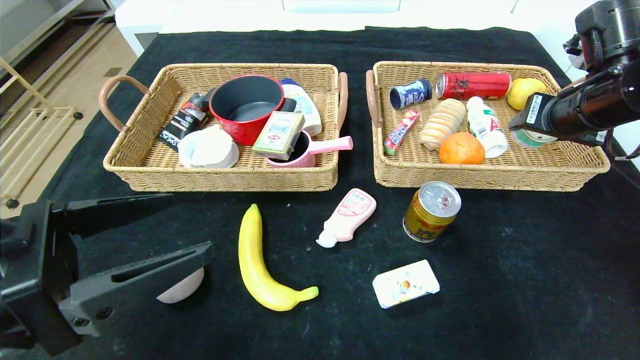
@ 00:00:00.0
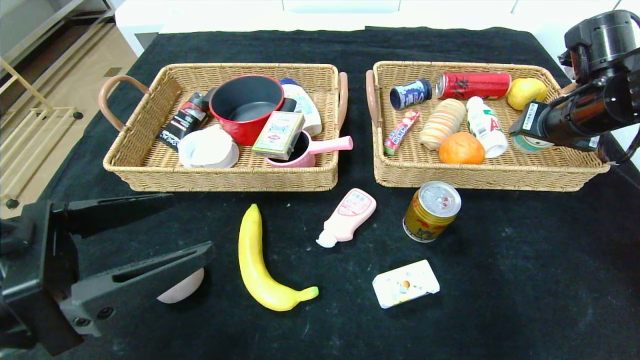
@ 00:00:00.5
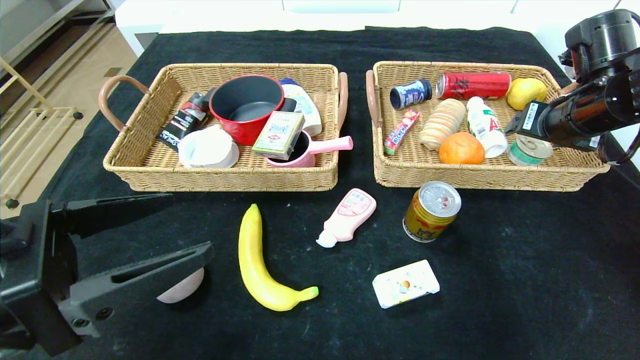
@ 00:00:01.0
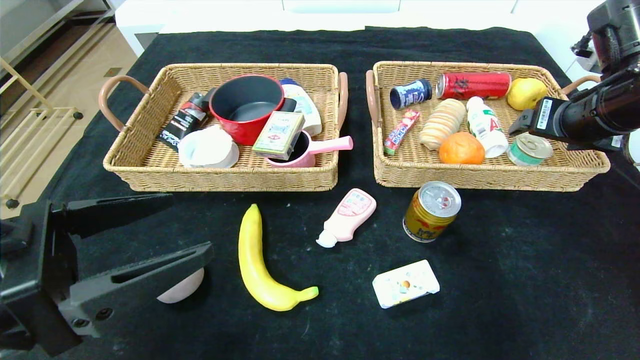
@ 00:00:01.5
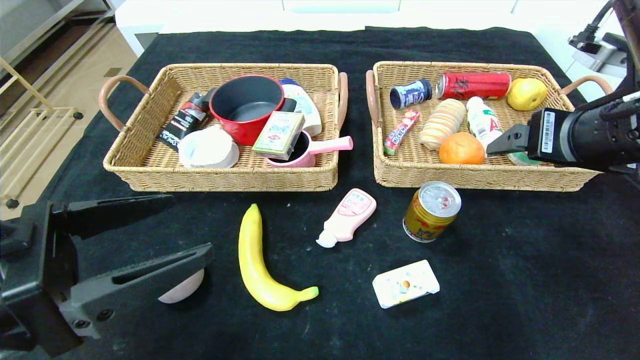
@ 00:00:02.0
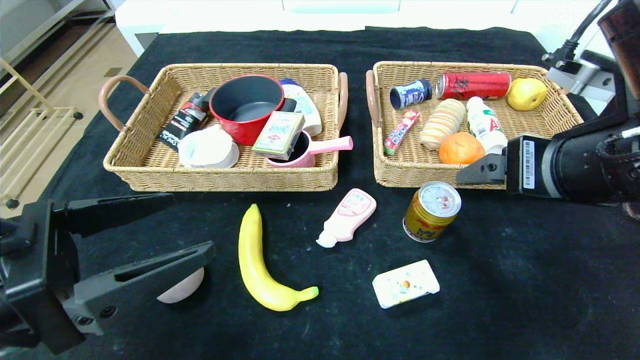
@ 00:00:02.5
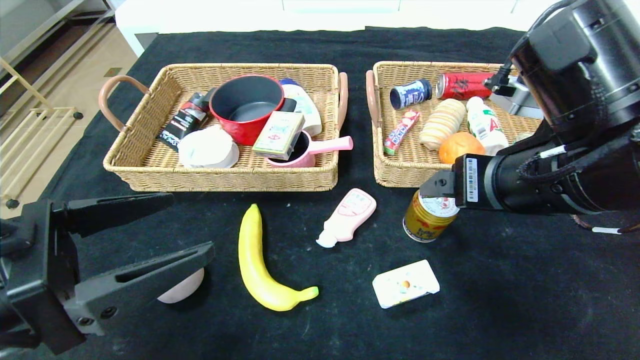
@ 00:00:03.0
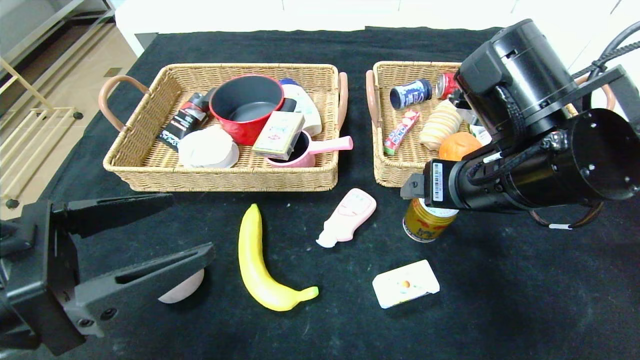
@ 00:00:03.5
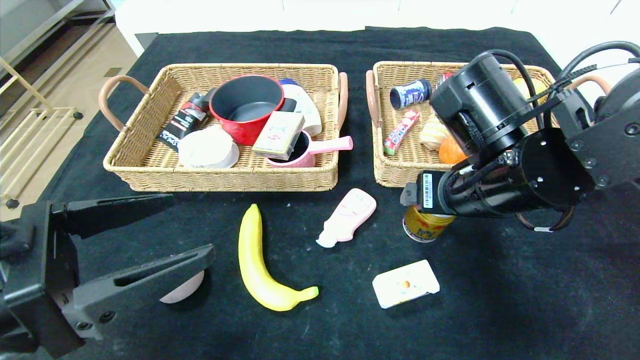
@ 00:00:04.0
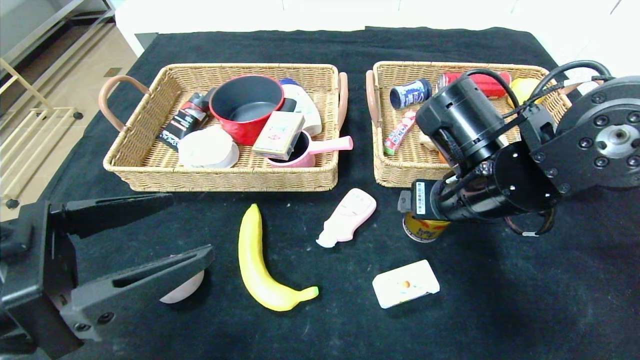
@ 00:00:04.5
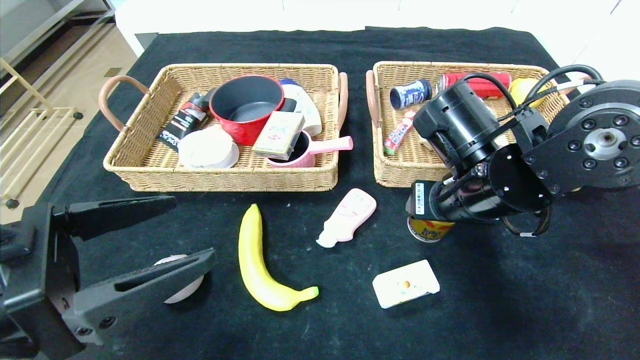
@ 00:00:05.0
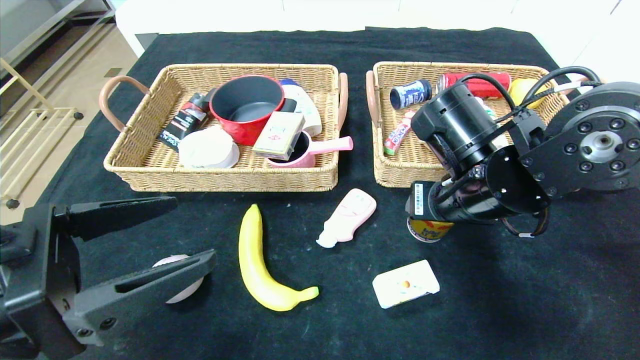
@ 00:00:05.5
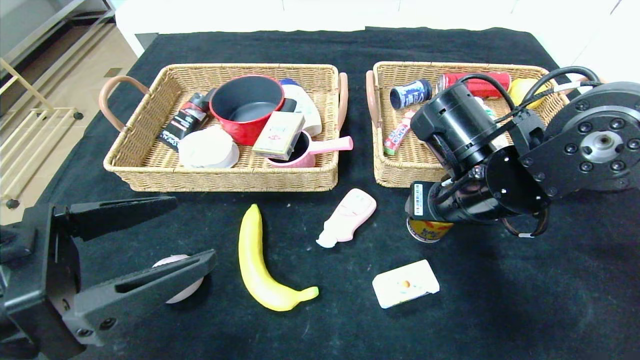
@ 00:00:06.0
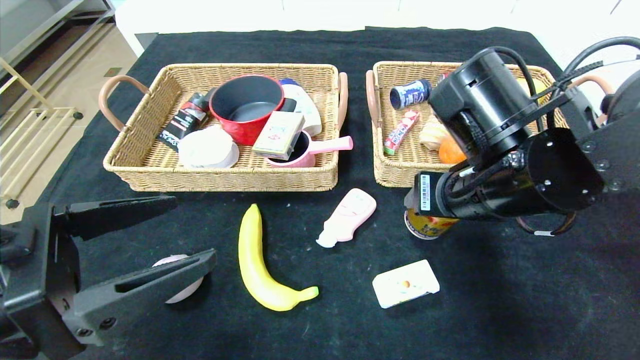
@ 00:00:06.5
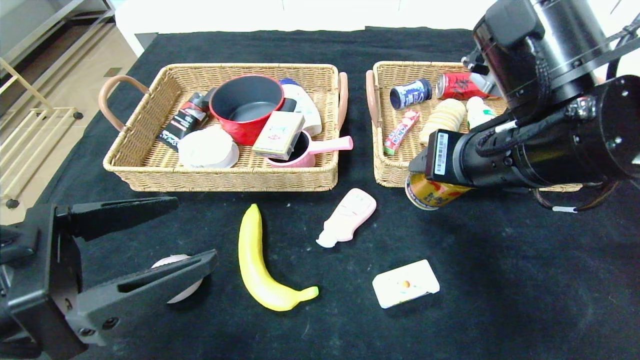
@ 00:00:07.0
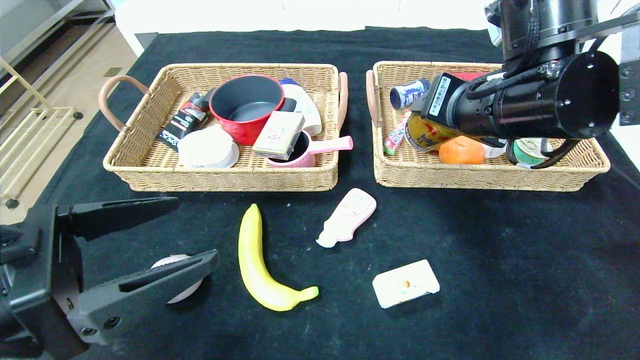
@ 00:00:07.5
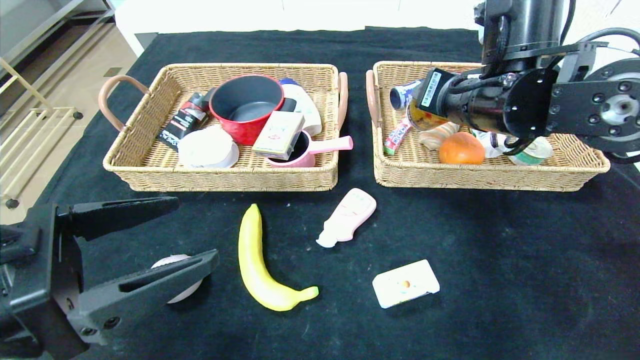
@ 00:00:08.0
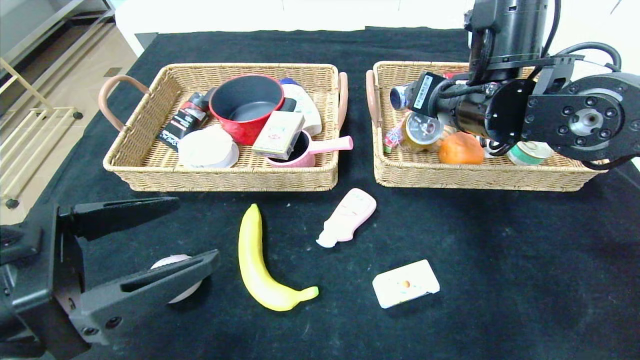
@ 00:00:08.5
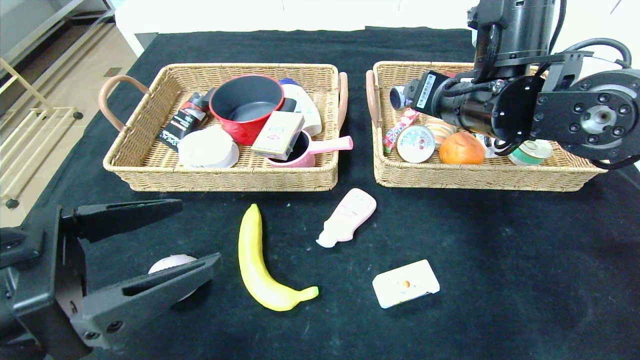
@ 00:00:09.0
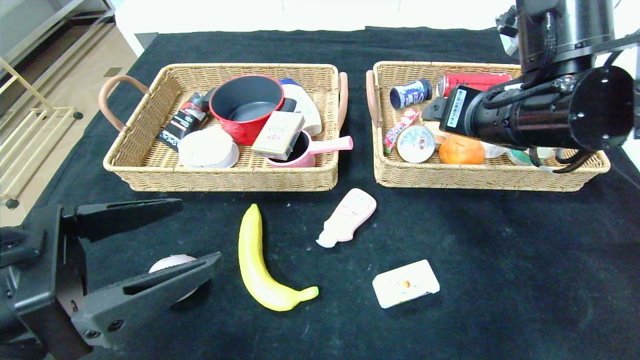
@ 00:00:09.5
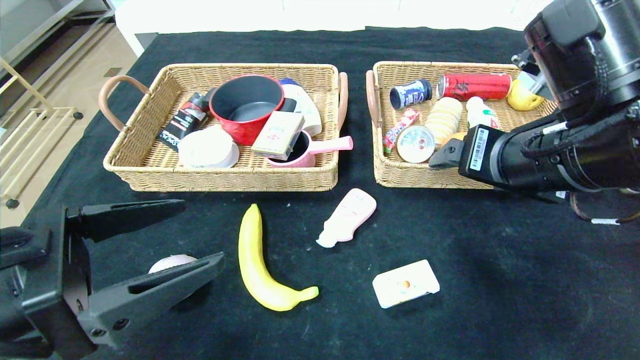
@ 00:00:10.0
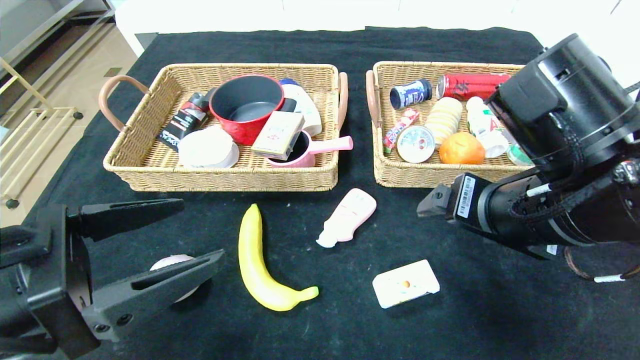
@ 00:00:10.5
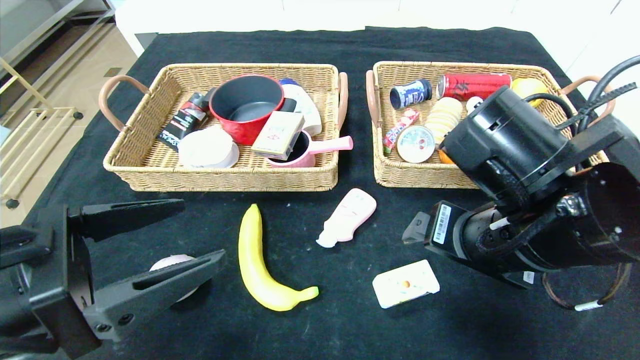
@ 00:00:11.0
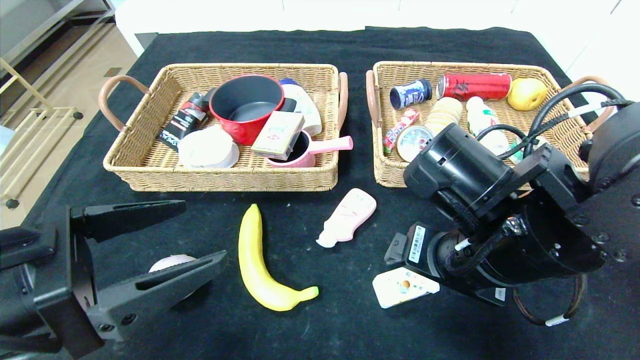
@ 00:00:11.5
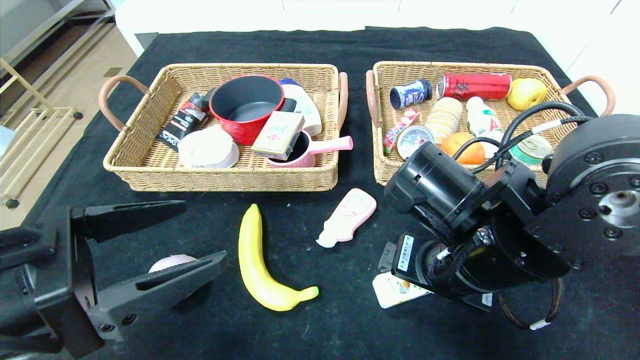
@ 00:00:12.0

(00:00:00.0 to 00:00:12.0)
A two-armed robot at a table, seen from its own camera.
Step, 00:00:01.0 - 00:00:08.5: Grasp the Red Bull and put it in the right basket.
00:00:00.0 - 00:00:02.0: The right gripper travels backward and to the left by some 10 cm.
00:00:02.0 - 00:00:04.0: The right gripper shifts approximately 10 cm to the left and downward.
00:00:04.0 - 00:00:06.0: The grippers make only small movements.
00:00:06.0 - 00:00:08.0: The right gripper travels upward and forward by about 10 cm.
00:00:08.0 - 00:00:10.0: The right gripper shifts approximately 10 cm backward.
00:00:10.0 - 00:00:12.0: The right gripper travels downward and to the left by roughly 10 cm.

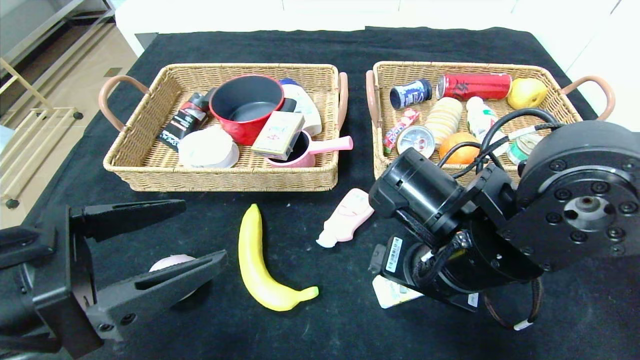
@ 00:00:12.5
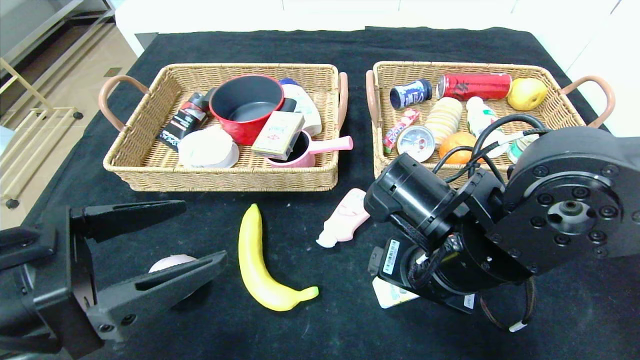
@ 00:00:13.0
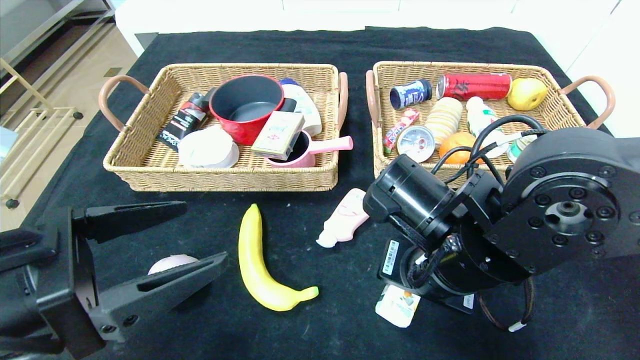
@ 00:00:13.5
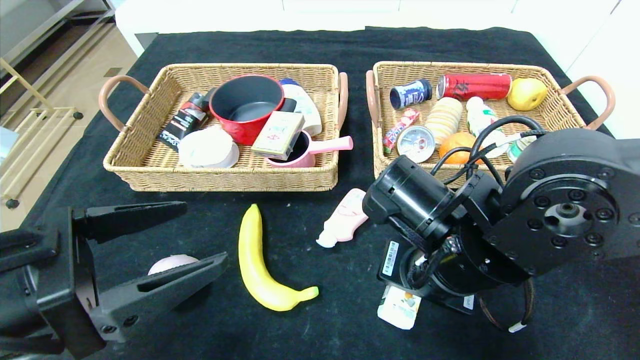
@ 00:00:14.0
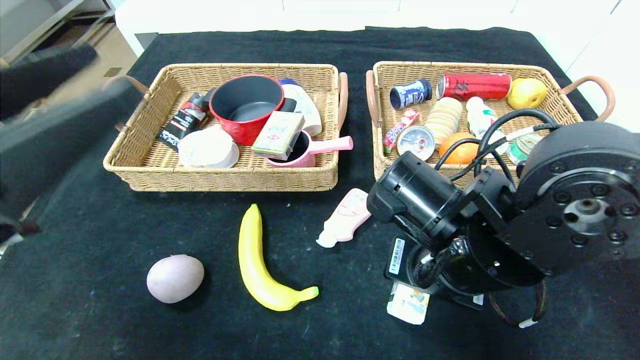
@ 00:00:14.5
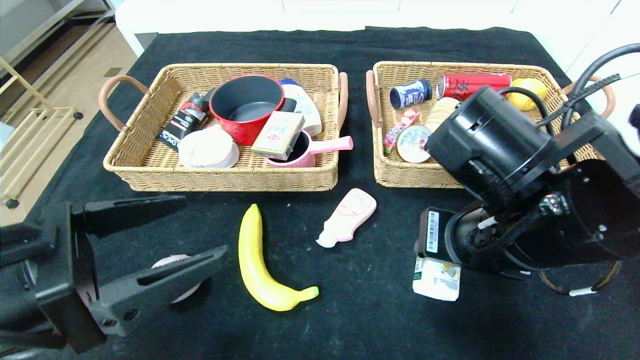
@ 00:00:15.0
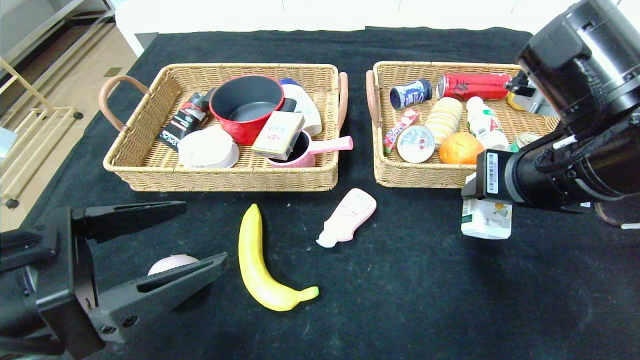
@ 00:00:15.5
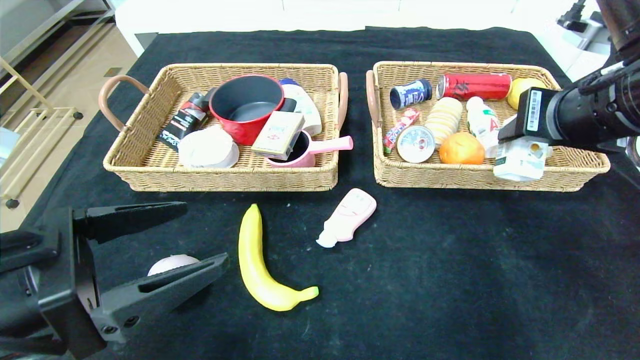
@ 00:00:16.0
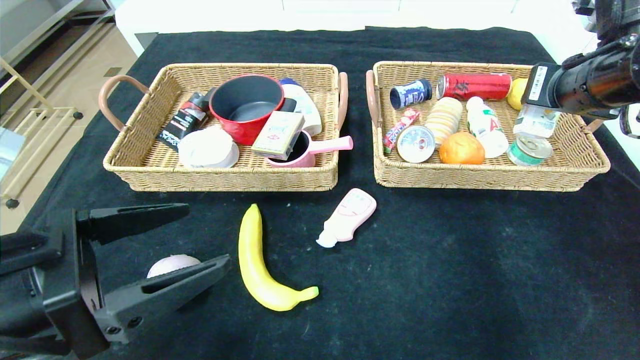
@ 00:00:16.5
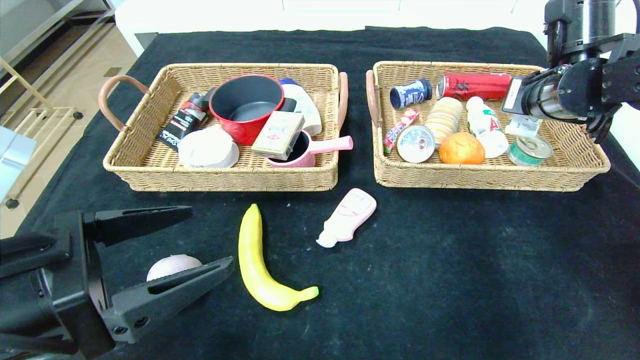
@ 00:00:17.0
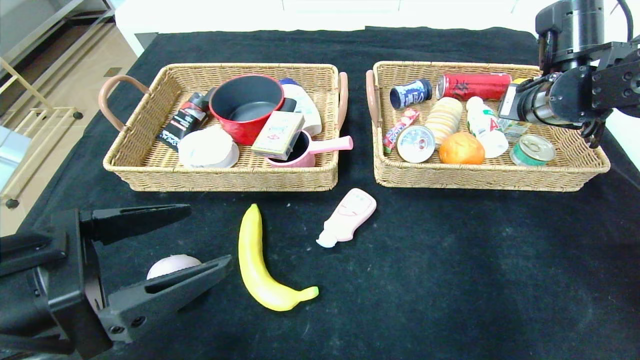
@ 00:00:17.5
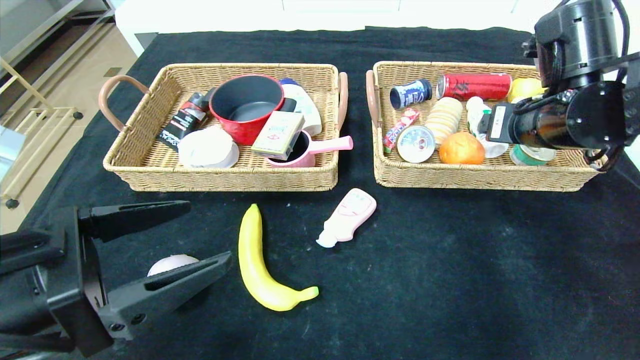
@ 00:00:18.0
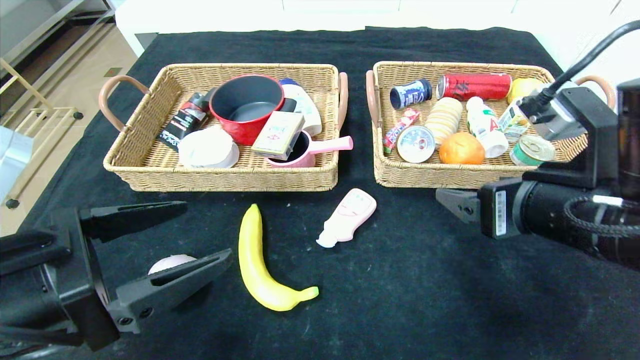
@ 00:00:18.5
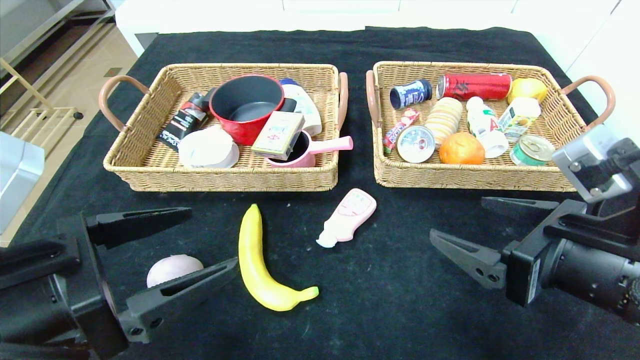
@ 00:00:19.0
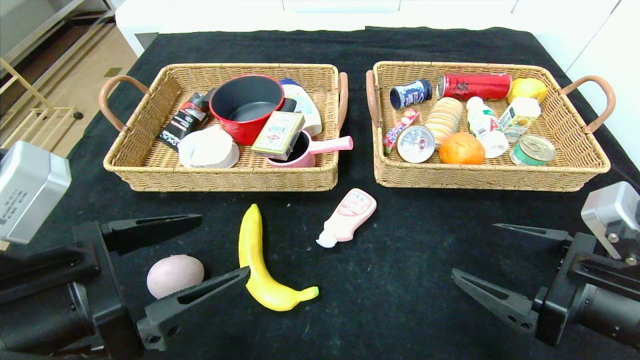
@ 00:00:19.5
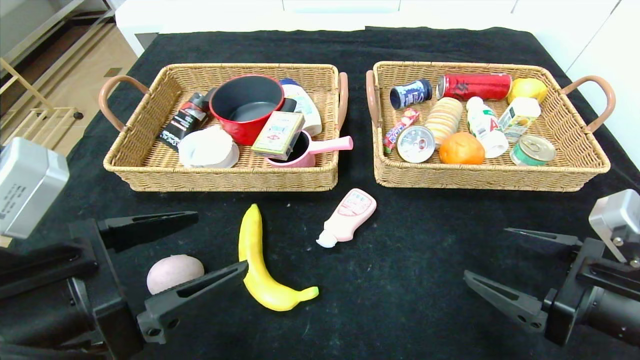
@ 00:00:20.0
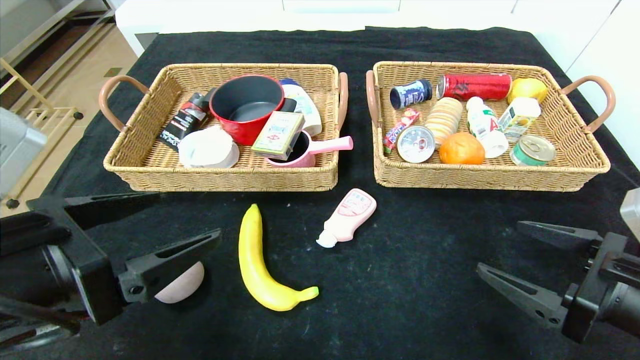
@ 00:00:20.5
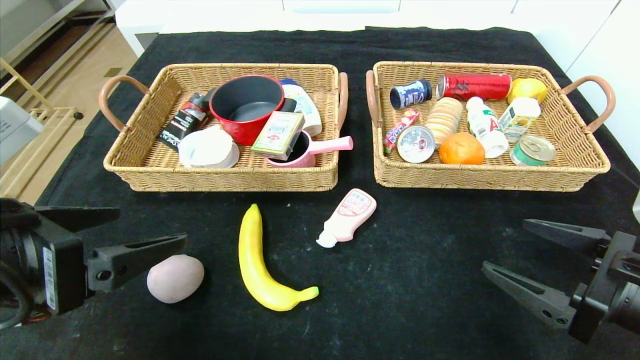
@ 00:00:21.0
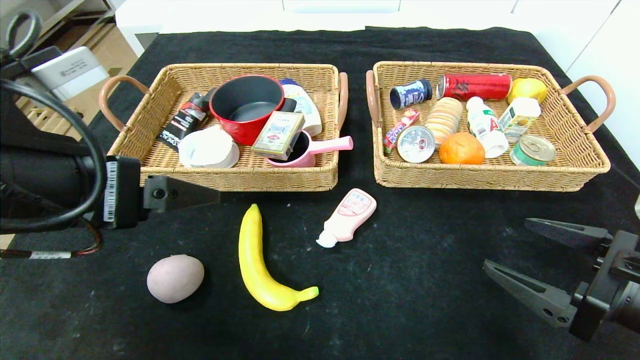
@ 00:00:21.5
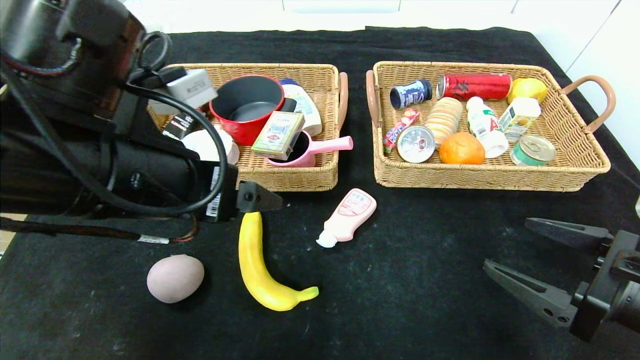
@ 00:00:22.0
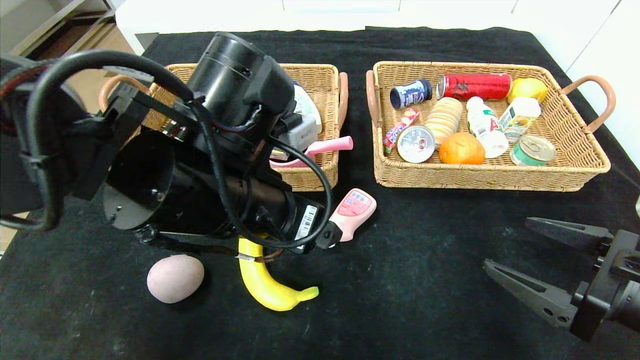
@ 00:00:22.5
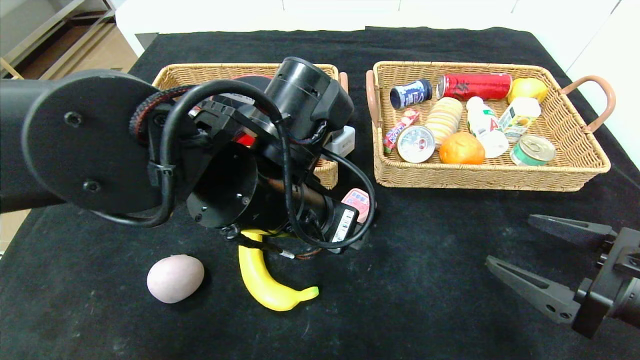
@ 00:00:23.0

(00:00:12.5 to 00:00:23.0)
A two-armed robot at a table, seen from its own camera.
Step, 00:00:12.5 - 00:00:17.0: Grasp the square chewing gum and put it in the right basket.
00:00:12.5 - 00:00:14.5: The right gripper closes up. Meanwhile the left gripper heads upward, covering roughly 5 cm.
00:00:14.5 - 00:00:16.5: The right gripper goes approximately 25 cm to the right, upward and forward. The left gripper moves downward, about 5 cm.
00:00:16.5 - 00:00:19.0: The right gripper moves backward and downward, approximately 20 cm, and opens its fingers.
00:00:19.0 - 00:00:21.0: The right gripper goes about 5 cm to the right.
00:00:21.0 - 00:00:23.0: The left gripper shifts approximately 20 cm to the right and forward.
